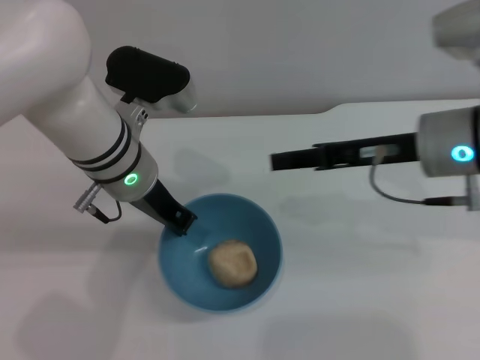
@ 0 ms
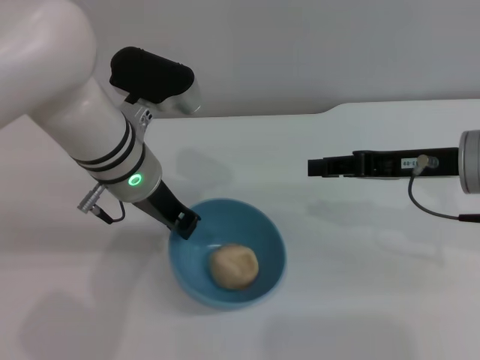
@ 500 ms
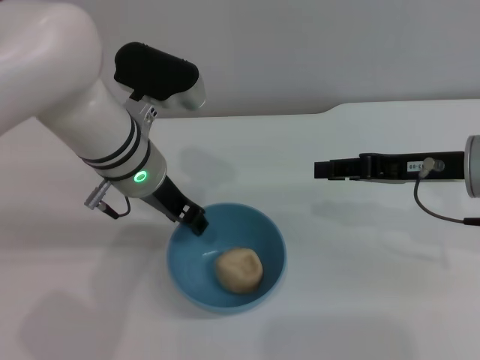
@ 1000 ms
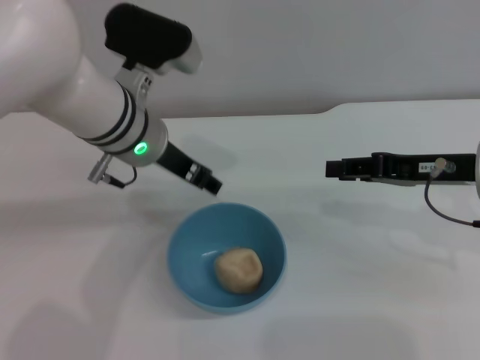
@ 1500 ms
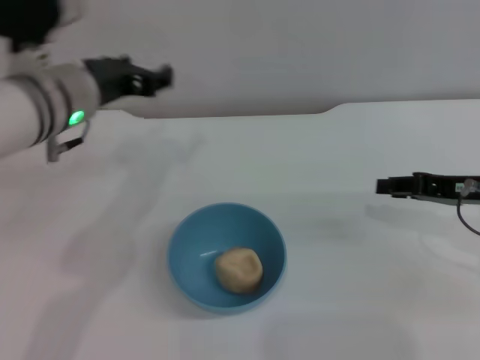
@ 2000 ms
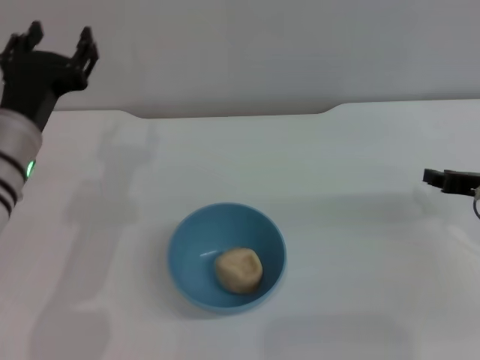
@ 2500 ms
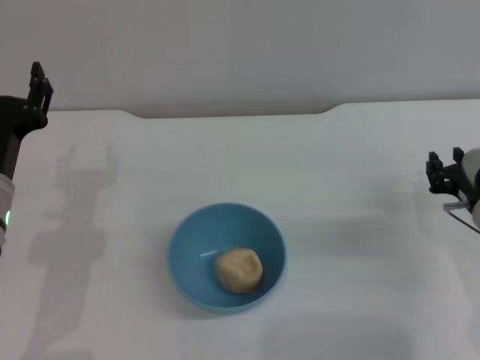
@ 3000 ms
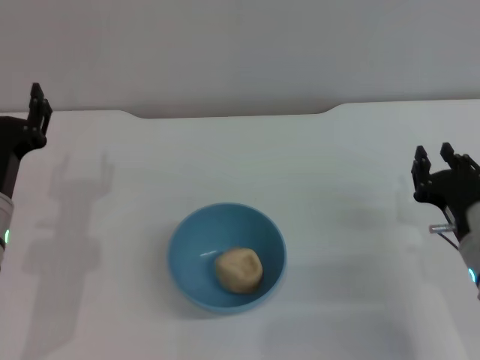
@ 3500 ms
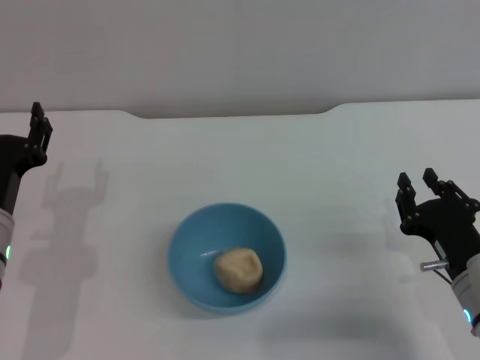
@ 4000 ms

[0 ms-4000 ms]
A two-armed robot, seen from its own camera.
Task of the whole recording: put the egg yolk pastry into the blue bowl and pour it out repeatedly.
Step, 0 ms to 1500 ms: Pour the egg yolk pastry out of bowl.
0 ms to 2000 ms: The left gripper moves to the left, some 5 cm, and opens. Meanwhile the right gripper is displaced to the right and downward by about 10 cm.
2000 ms to 4000 ms: The grippers both shift downward, backward and to the left by some 15 cm.
